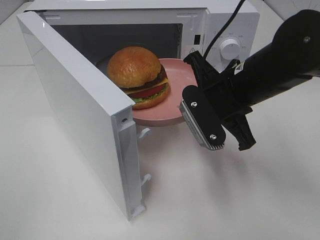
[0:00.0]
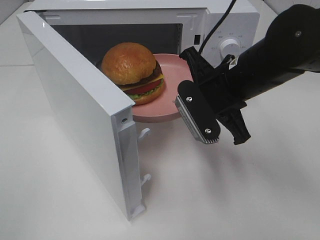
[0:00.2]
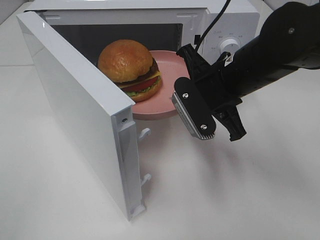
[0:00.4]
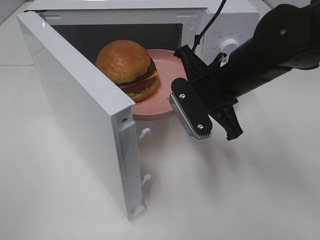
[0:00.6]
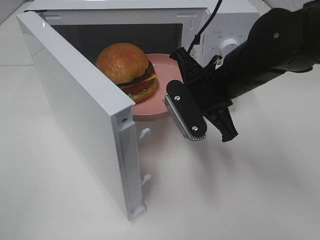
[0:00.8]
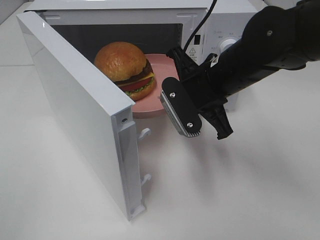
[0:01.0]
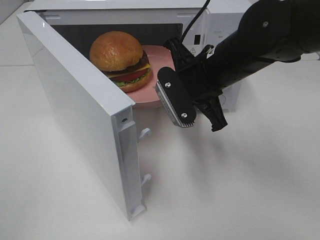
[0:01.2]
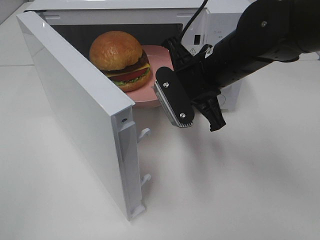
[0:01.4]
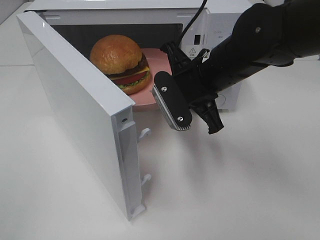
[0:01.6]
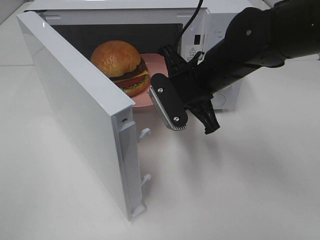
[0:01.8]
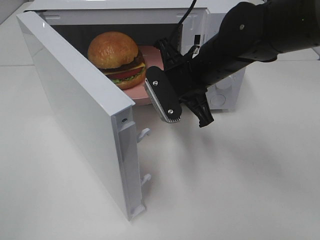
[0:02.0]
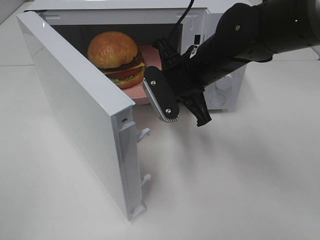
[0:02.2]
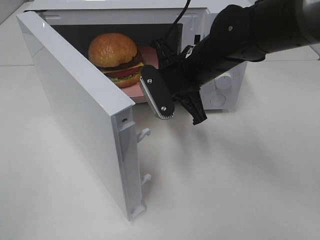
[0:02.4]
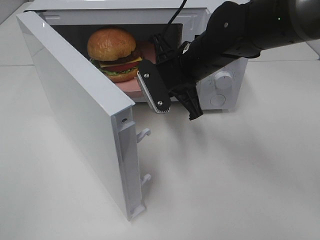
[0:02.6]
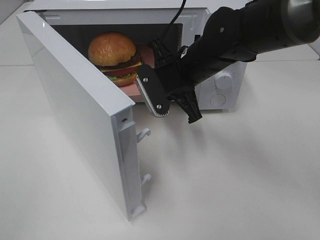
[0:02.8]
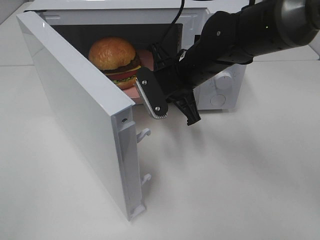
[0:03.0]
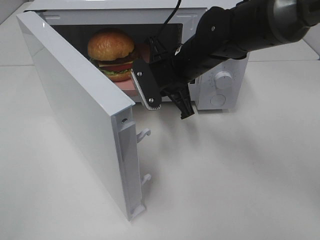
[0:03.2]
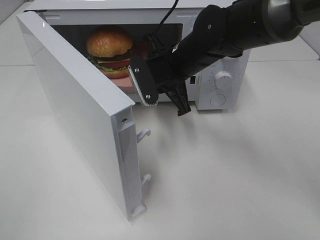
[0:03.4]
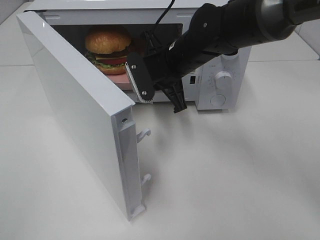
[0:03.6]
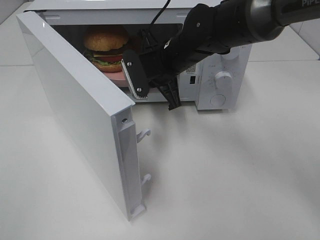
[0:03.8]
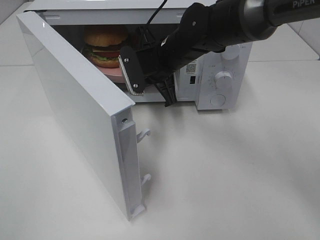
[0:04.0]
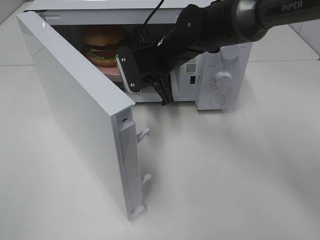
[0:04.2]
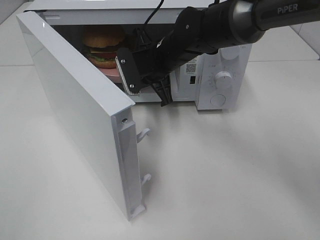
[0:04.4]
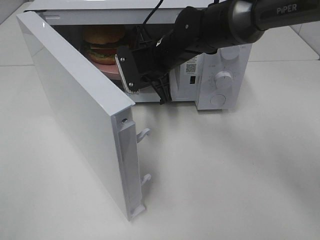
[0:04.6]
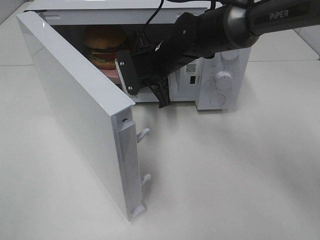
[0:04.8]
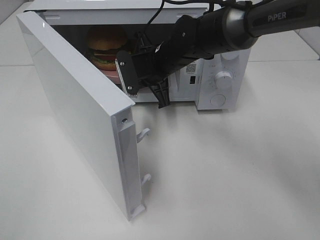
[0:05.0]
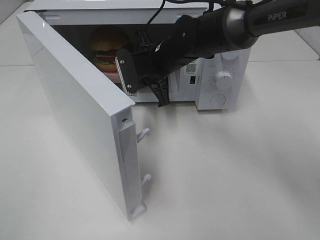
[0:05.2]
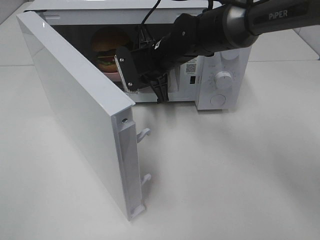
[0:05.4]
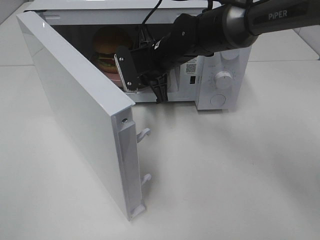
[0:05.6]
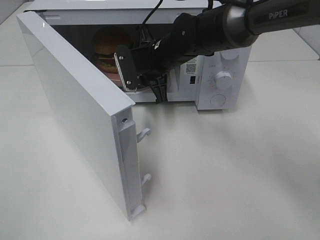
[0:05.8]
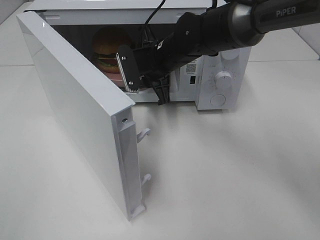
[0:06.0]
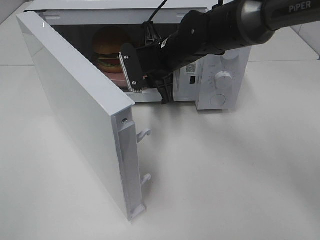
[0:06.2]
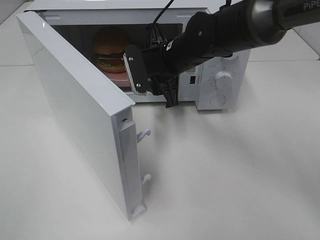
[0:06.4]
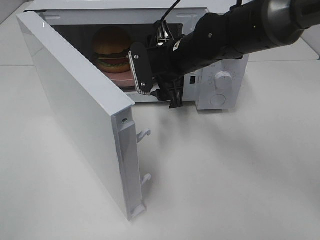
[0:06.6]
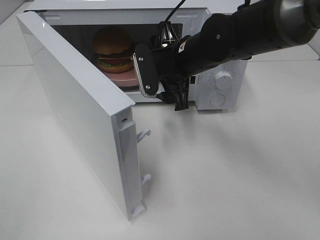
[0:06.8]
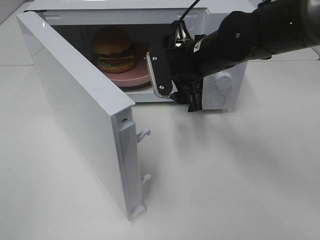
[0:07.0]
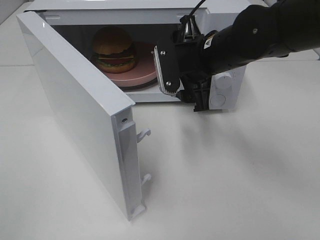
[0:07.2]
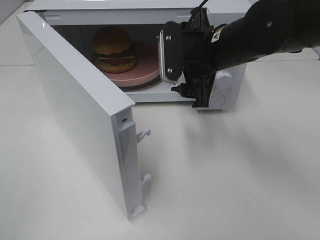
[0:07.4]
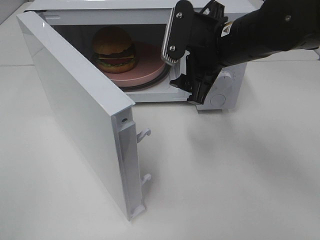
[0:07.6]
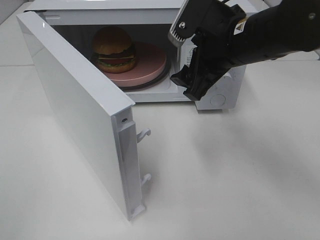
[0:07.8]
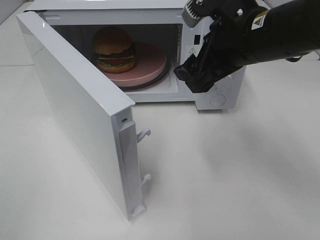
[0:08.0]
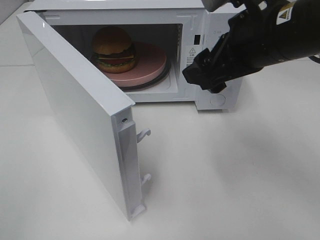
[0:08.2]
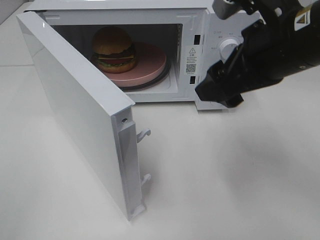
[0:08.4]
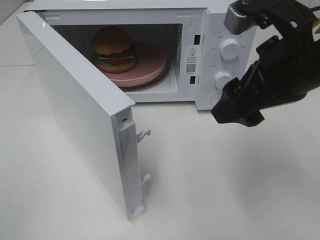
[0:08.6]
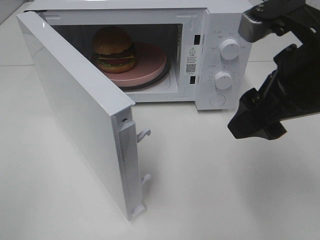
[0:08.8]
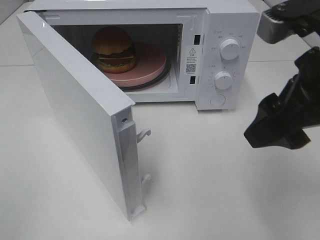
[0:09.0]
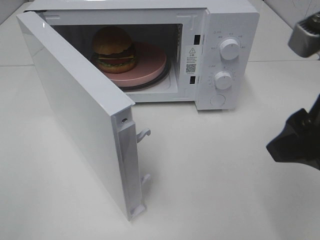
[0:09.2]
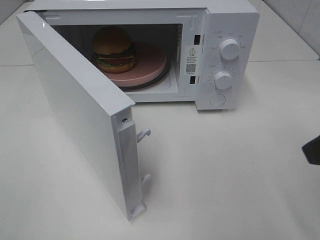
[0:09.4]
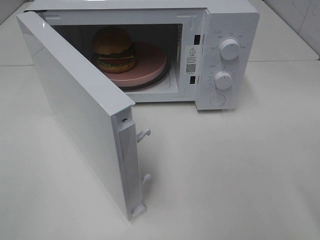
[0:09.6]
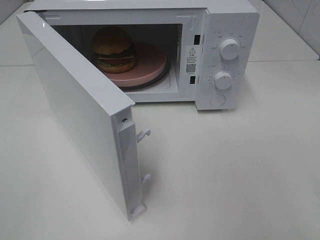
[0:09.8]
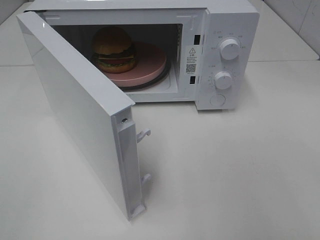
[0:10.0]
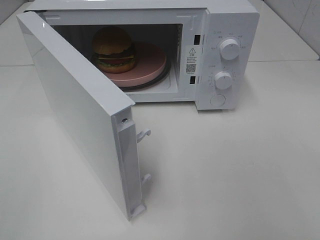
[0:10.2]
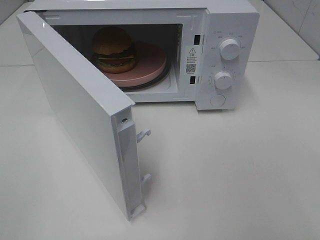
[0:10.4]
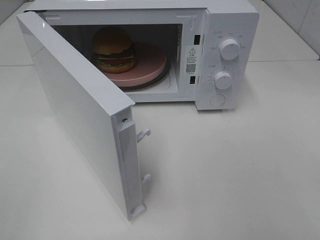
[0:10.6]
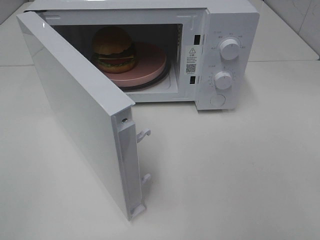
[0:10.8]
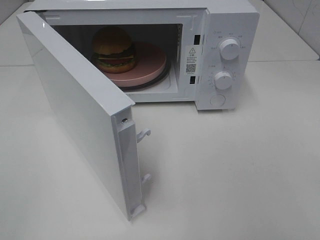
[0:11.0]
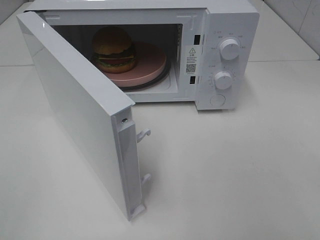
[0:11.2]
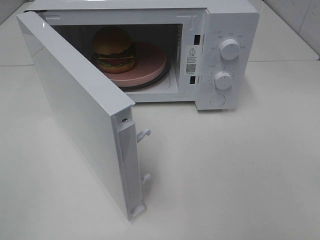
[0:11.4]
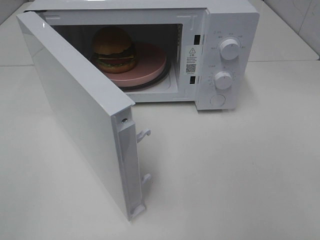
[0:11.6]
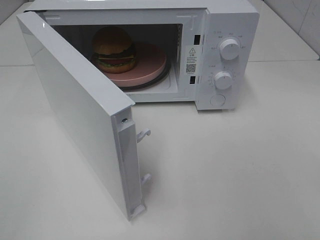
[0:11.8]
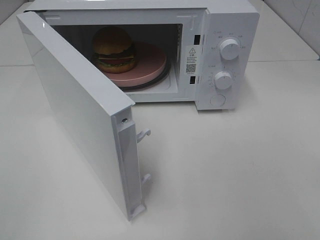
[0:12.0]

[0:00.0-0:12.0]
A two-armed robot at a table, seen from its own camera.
Task of the whole recording: Heat the burger.
Step, 0:00.0 to 0:05.4: Right hand: place the plate in the microwave.
0:01.6 to 0:03.0: The right gripper ends up about 5 cm from where it was.
0:03.0 to 0:04.4: The right gripper is displaced forward by about 5 cm.
0:04.4 to 0:06.0: The grippers stay close to where they were, moving slightly.
0:06.0 to 0:07.6: The right gripper shifts about 15 cm backward, to the right and upward, and opens up.
0:07.6 to 0:09.0: The right gripper is displaced backward, to the right and upward by some 15 cm.
0:09.0 to 0:10.4: The right gripper travels backward and to the right by approximately 20 cm.

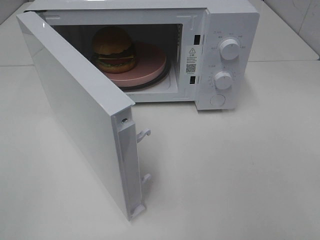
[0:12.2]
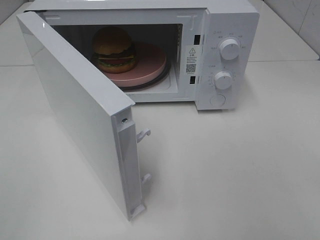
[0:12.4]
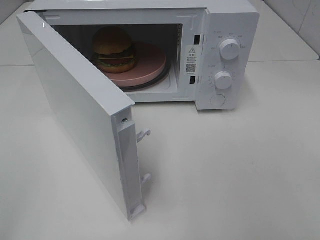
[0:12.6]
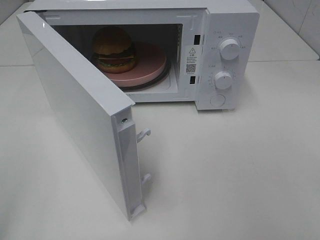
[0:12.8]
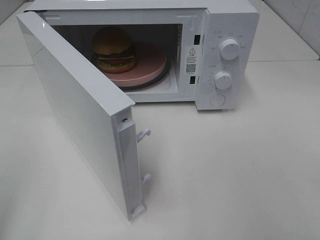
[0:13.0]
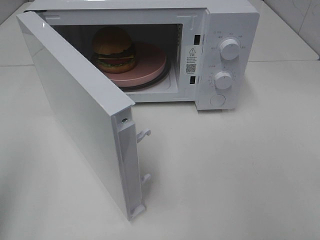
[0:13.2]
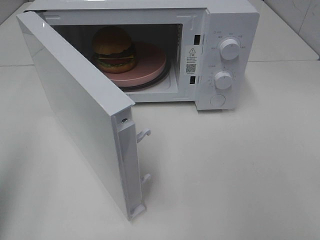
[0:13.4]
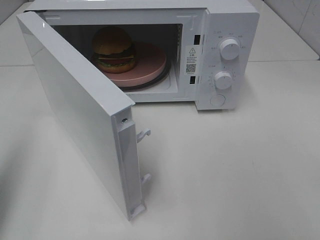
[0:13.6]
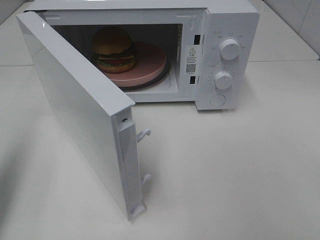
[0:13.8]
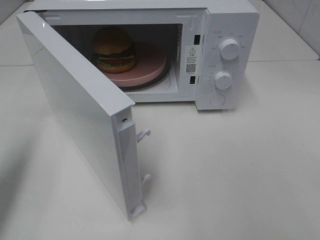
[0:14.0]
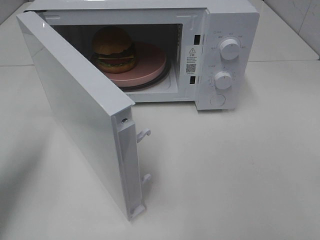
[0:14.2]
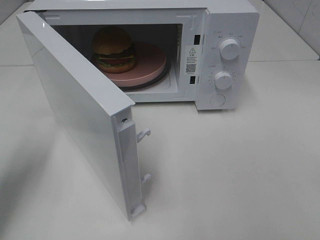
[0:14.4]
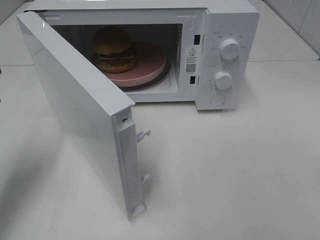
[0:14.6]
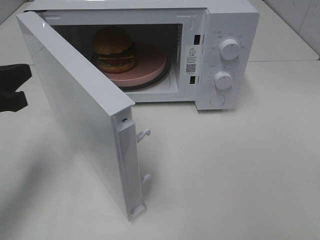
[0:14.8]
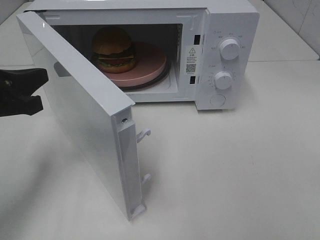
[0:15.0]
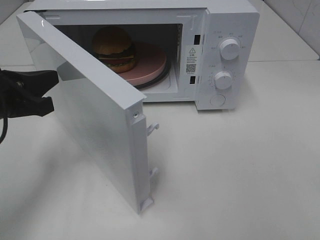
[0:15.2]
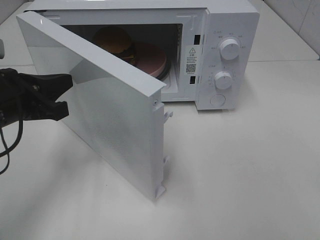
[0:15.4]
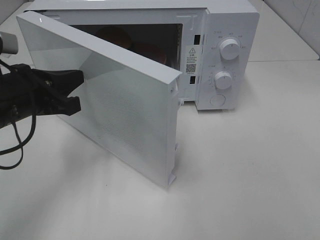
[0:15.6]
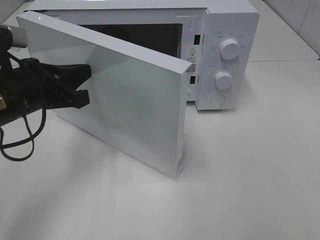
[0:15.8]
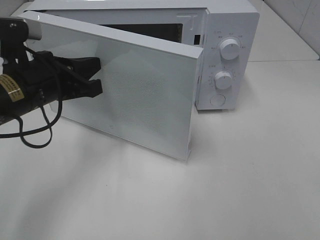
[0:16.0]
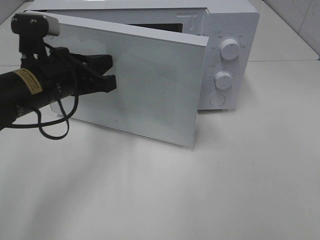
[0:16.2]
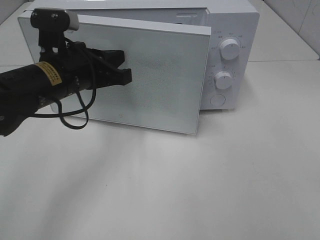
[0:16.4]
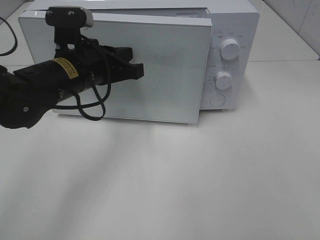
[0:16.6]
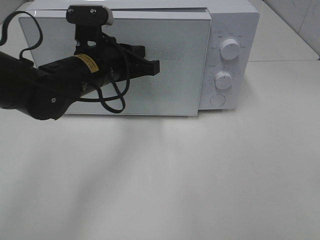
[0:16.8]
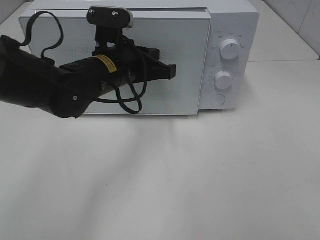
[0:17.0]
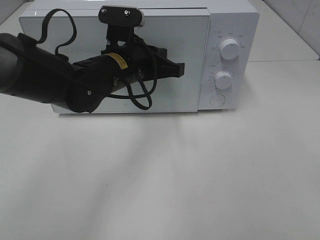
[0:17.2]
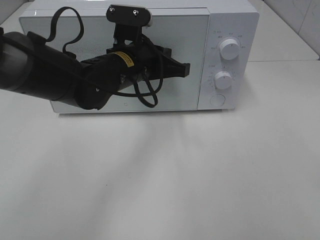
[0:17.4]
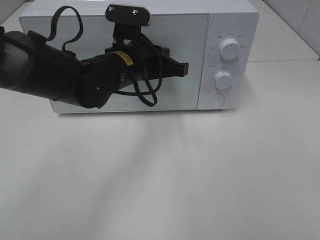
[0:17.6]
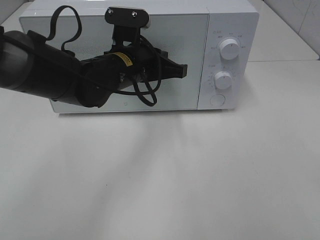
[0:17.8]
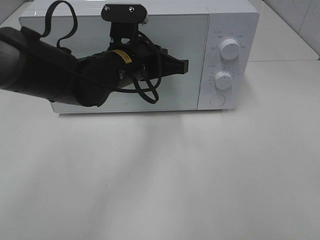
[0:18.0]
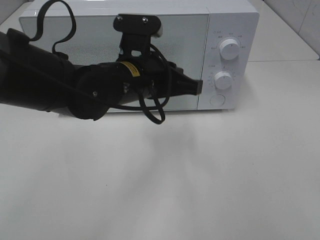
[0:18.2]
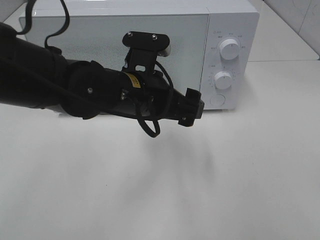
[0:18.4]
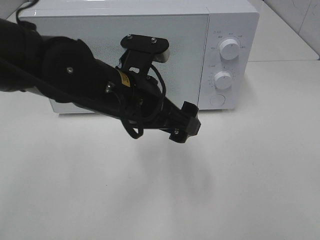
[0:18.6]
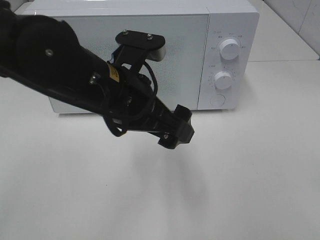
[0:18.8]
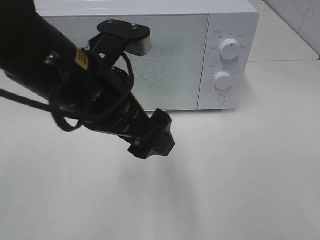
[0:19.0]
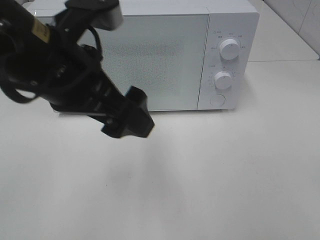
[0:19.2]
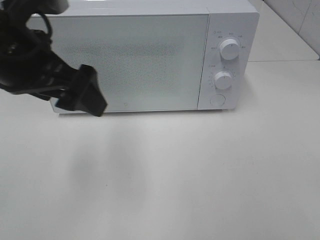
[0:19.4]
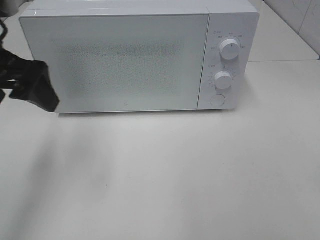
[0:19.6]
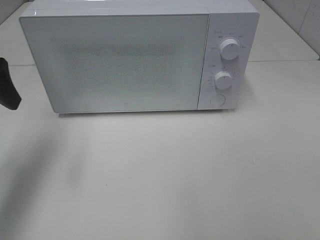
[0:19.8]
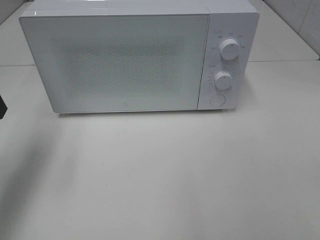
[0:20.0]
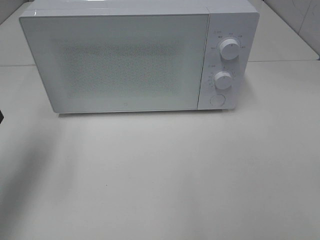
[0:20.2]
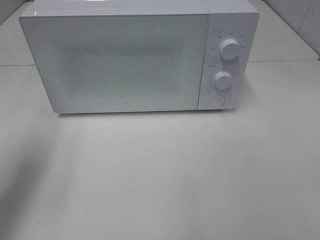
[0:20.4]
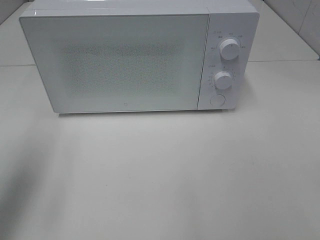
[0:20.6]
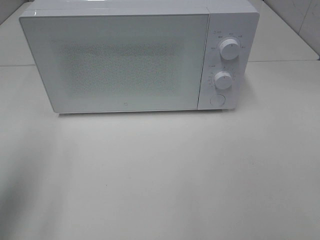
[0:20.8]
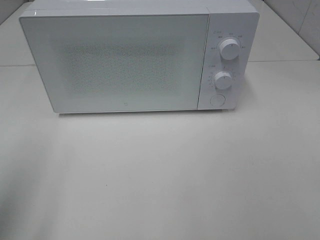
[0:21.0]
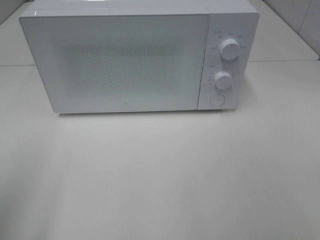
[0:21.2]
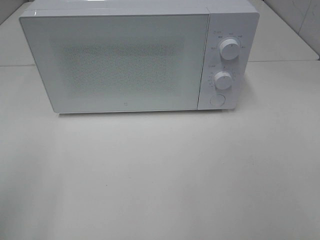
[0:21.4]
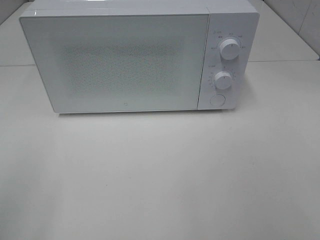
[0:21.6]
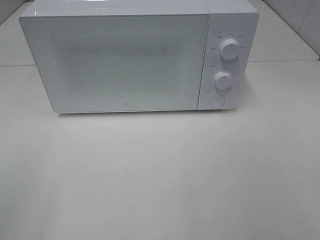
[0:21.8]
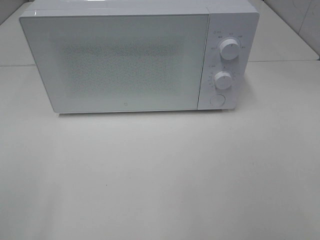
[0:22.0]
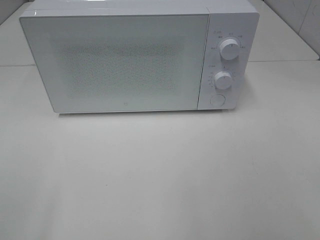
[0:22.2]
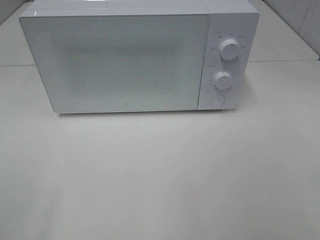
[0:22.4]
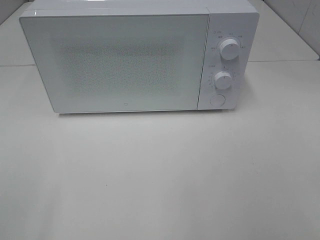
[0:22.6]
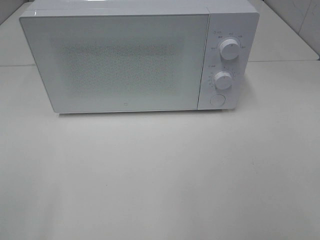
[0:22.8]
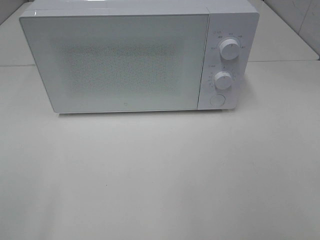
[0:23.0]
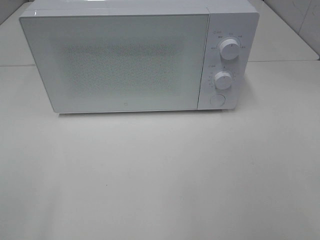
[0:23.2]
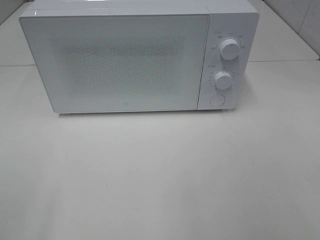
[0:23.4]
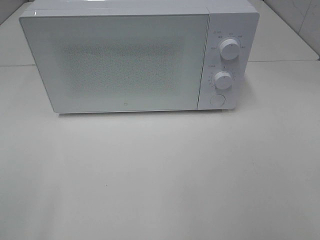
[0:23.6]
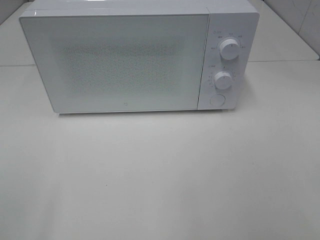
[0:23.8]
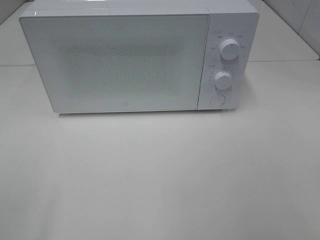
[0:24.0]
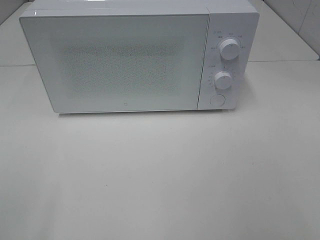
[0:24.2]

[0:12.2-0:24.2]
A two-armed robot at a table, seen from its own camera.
Task of the whole recording: Heat the burger.
Step, 0:12.2 to 0:17.6: Left hand: close the microwave door.
0:12.2 to 0:13.8: The left gripper travels forward by some 15 cm, and closes its fingers.
0:13.8 to 0:15.2: The left gripper heads to the right, forward and downward, covering approximately 15 cm.
0:15.2 to 0:16.6: The left gripper shifts about 15 cm to the right and forward.
0:16.6 to 0:18.2: The left gripper travels to the right by about 10 cm.
0:18.2 to 0:19.8: The left gripper heads to the left, covering about 25 cm, and opens up.
0:19.8 to 0:21.2: The left gripper moves backward, approximately 15 cm.
